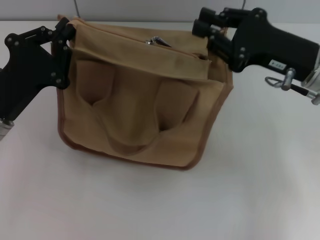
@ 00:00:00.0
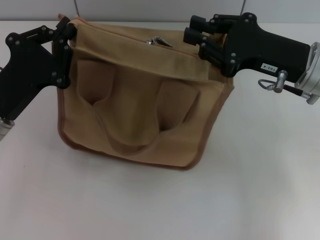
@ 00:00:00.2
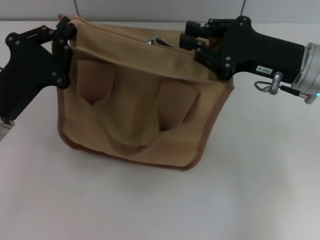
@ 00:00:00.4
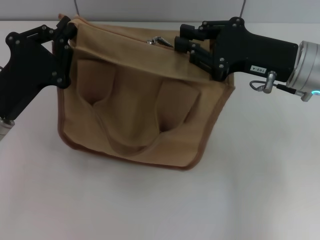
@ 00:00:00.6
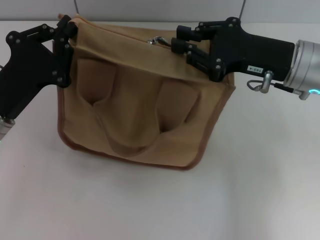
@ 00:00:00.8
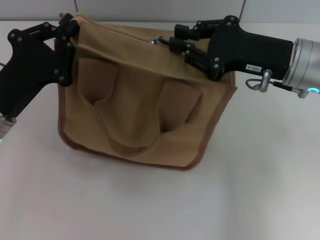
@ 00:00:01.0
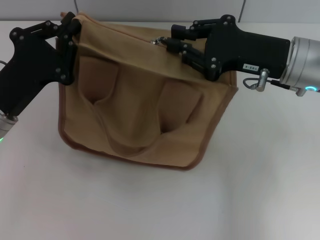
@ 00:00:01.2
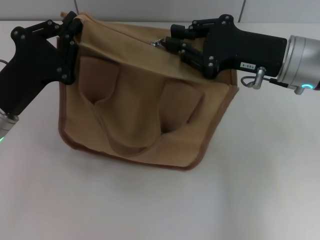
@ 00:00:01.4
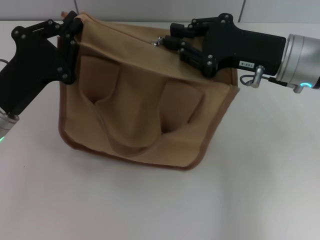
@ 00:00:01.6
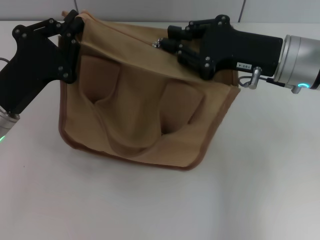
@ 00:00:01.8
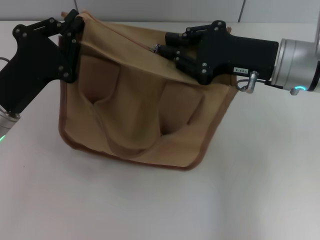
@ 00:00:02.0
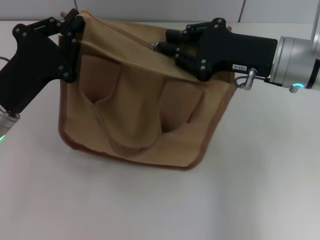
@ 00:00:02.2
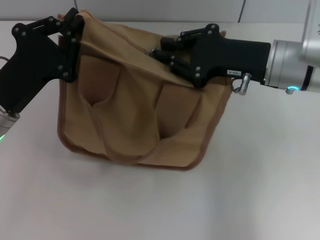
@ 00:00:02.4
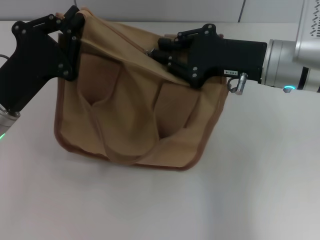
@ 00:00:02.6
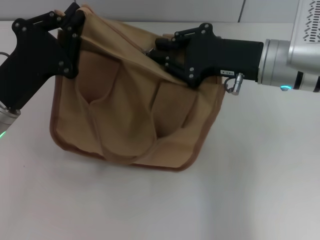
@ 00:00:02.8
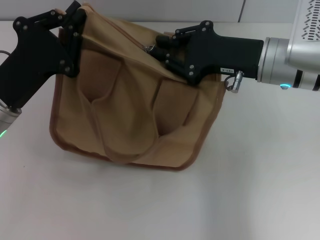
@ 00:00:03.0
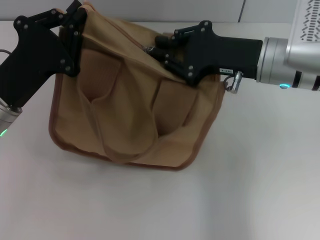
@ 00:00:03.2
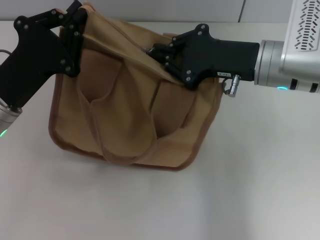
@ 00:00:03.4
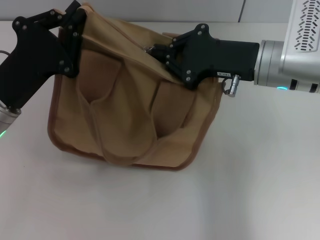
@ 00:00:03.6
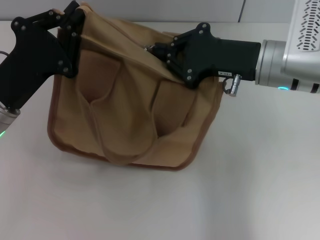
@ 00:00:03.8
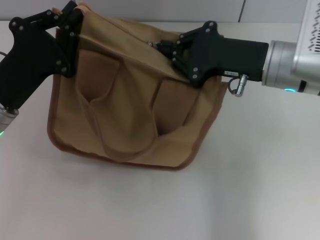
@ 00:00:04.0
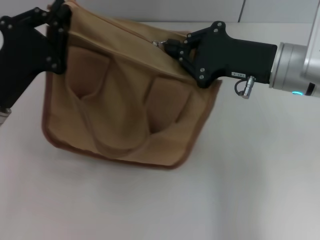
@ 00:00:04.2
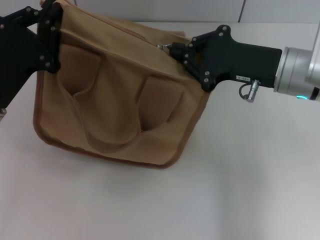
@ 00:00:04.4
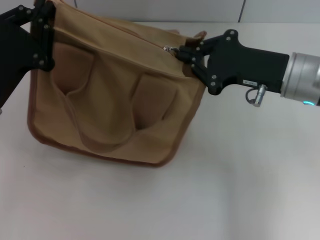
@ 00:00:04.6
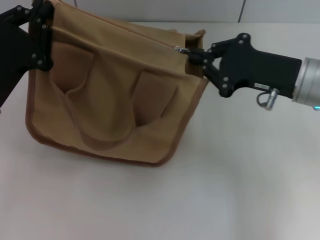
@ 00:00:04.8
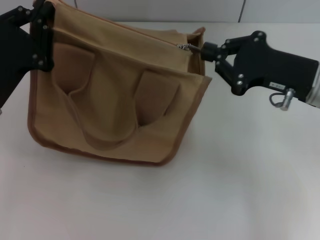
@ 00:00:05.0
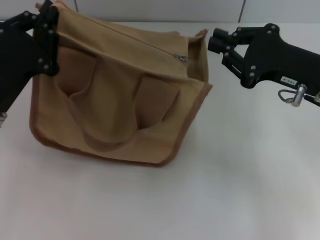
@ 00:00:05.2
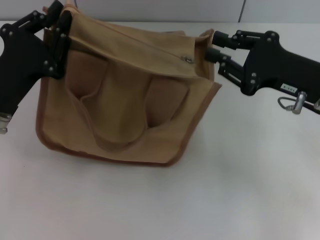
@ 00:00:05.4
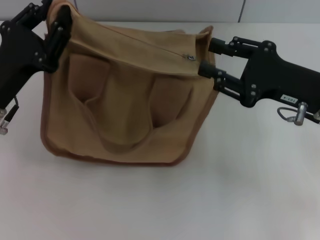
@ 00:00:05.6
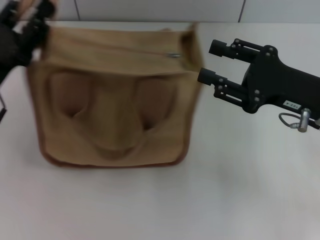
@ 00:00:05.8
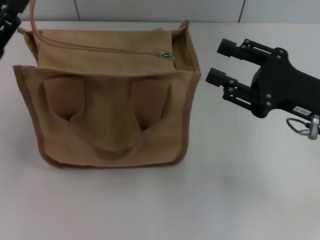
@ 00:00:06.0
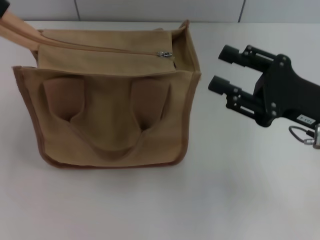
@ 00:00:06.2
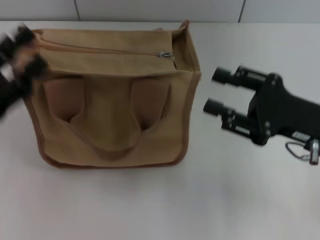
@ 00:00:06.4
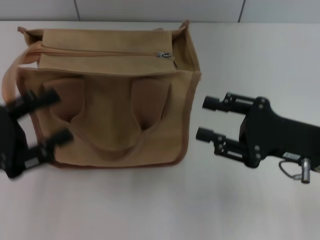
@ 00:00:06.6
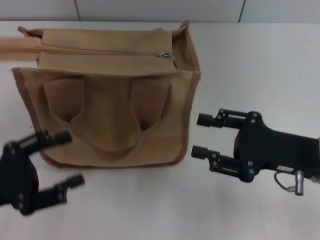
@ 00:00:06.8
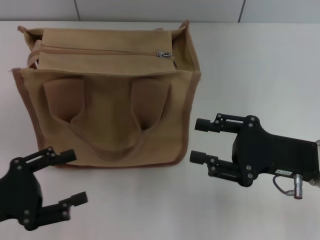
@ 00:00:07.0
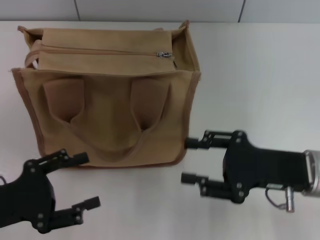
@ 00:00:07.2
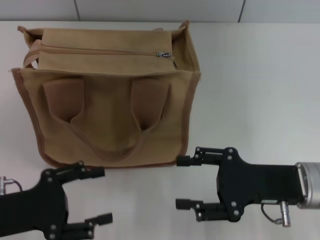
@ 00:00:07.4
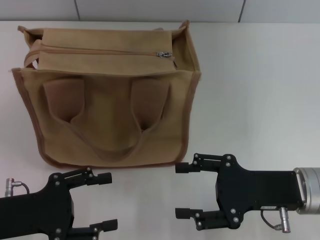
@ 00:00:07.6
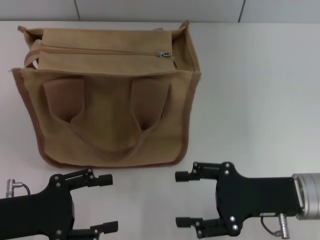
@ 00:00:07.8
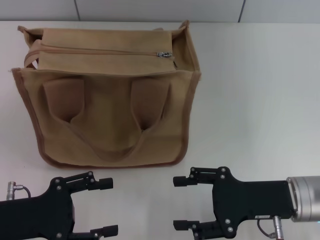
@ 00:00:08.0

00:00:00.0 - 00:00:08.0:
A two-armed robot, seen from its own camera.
Step, 00:00:00.0 - 00:00:05.0: Pull up the zipper with your right hand.
Step, 00:00:05.2 - 00:00:06.2: Grab the zipper with your left hand.
00:00:00.0 - 00:00:01.6: The grippers stay close to where they were, moving slightly.
00:00:01.6 - 00:00:03.2: The grippers stay close to where they were, moving slightly.
00:00:03.2 - 00:00:04.8: The right gripper changes place by some 5 cm.
00:00:04.8 - 00:00:06.4: The left gripper changes place by approximately 5 cm, and opens up; the right gripper shifts about 5 cm backward, and opens its fingers.
00:00:06.4 - 00:00:08.0: Both grippers move downward, about 5 cm.

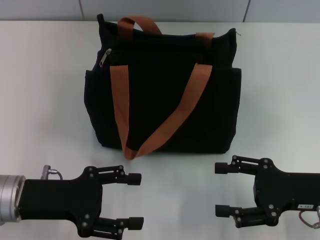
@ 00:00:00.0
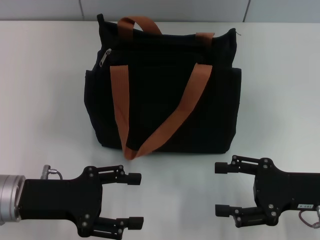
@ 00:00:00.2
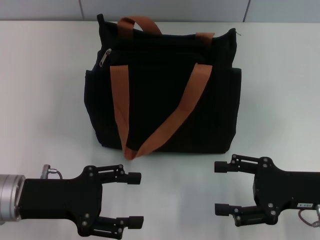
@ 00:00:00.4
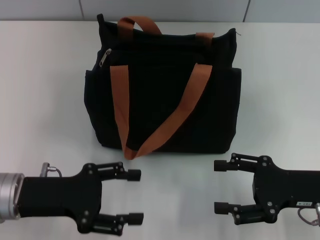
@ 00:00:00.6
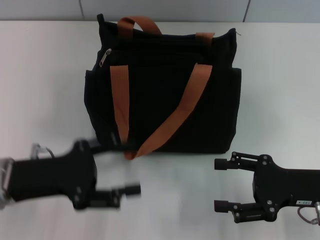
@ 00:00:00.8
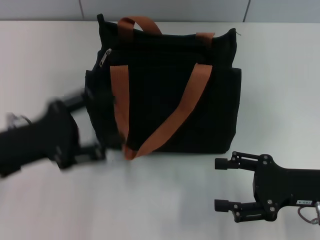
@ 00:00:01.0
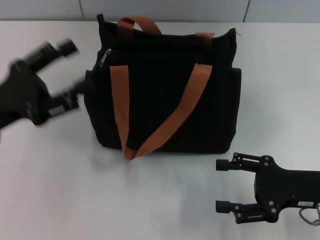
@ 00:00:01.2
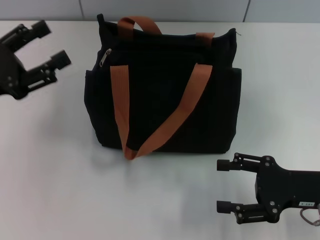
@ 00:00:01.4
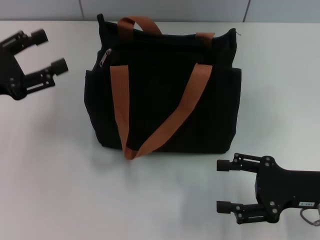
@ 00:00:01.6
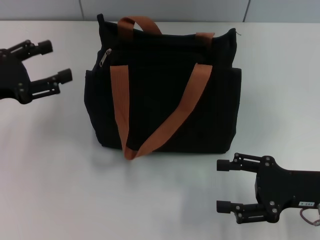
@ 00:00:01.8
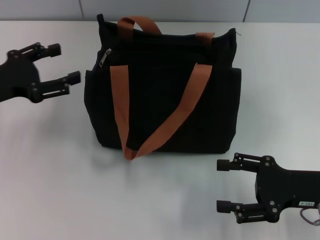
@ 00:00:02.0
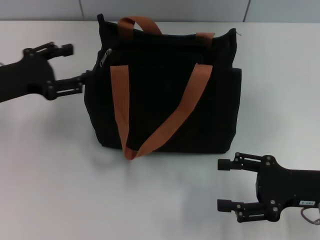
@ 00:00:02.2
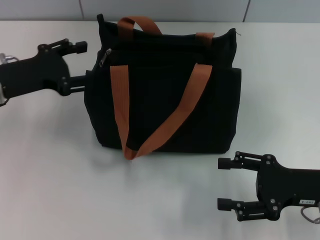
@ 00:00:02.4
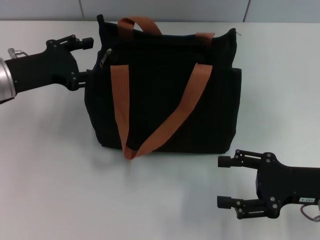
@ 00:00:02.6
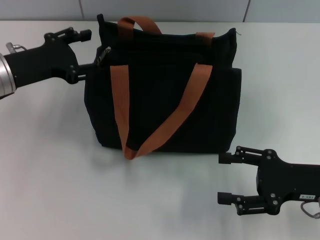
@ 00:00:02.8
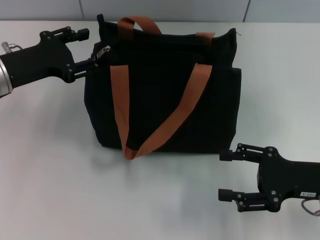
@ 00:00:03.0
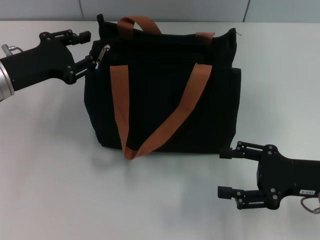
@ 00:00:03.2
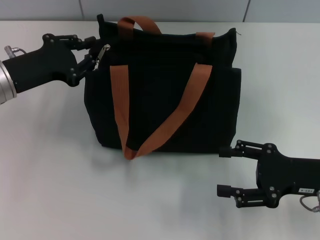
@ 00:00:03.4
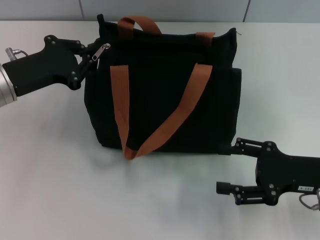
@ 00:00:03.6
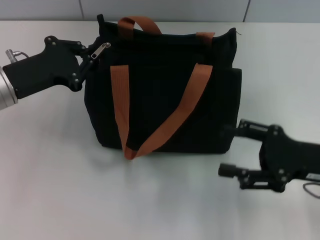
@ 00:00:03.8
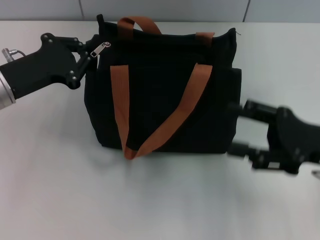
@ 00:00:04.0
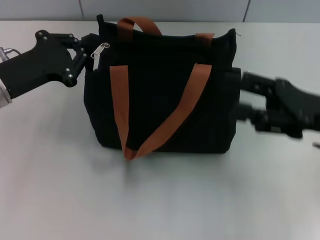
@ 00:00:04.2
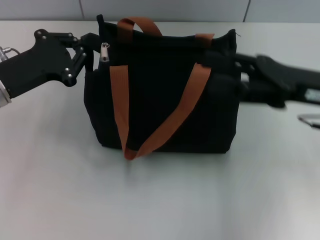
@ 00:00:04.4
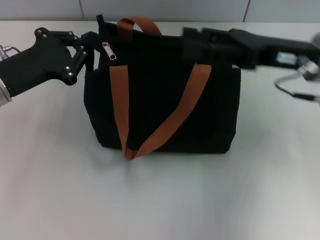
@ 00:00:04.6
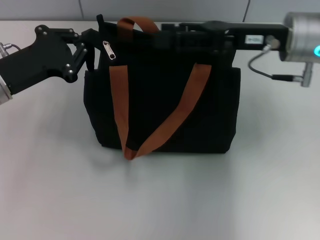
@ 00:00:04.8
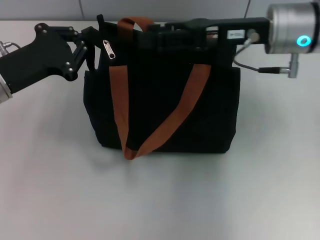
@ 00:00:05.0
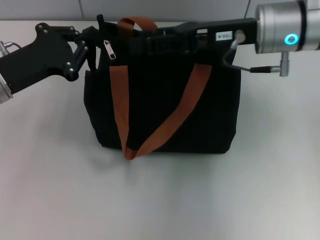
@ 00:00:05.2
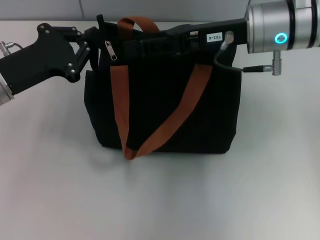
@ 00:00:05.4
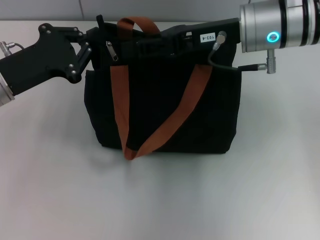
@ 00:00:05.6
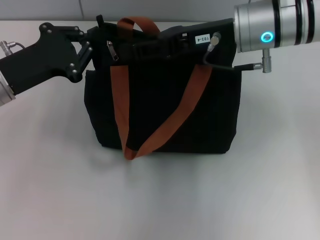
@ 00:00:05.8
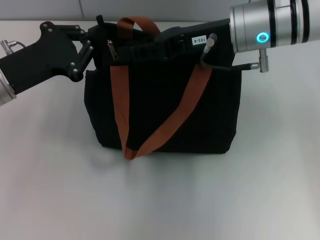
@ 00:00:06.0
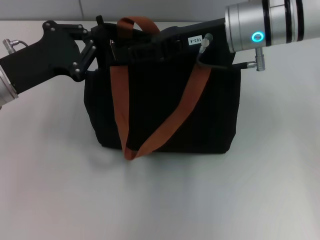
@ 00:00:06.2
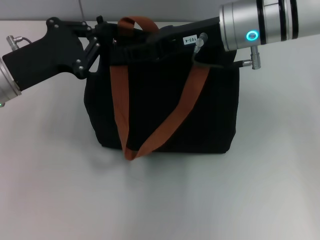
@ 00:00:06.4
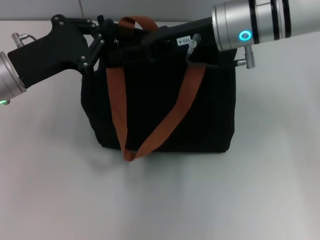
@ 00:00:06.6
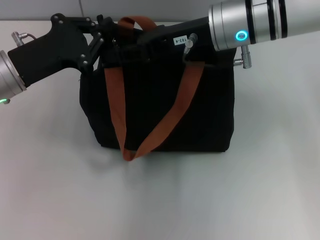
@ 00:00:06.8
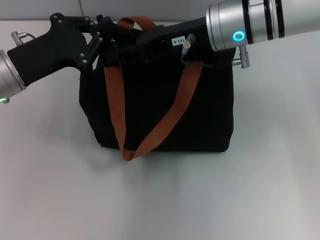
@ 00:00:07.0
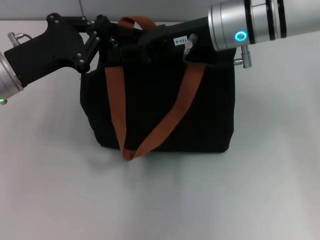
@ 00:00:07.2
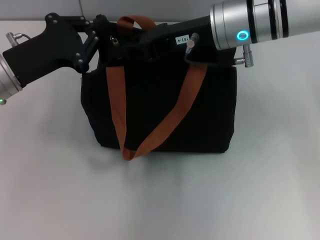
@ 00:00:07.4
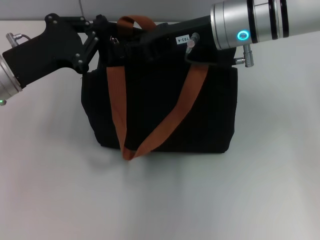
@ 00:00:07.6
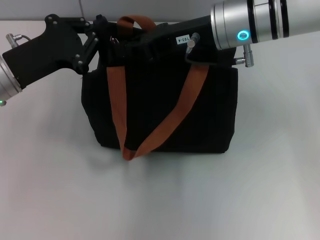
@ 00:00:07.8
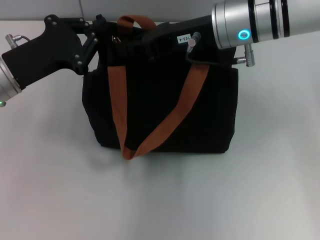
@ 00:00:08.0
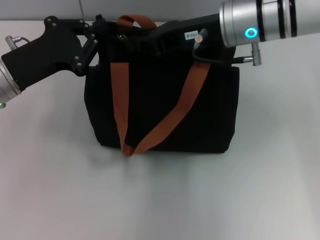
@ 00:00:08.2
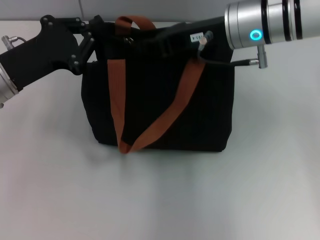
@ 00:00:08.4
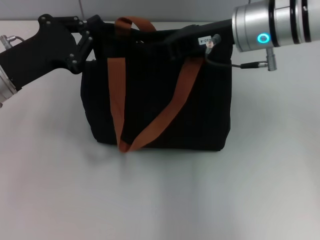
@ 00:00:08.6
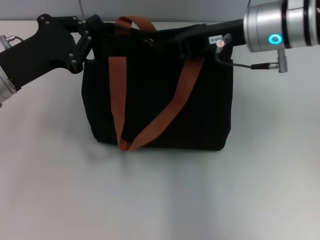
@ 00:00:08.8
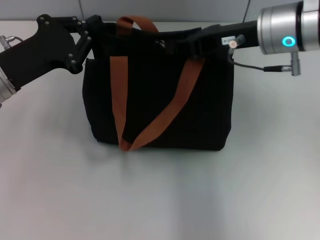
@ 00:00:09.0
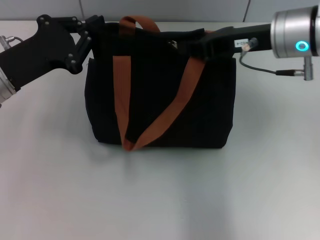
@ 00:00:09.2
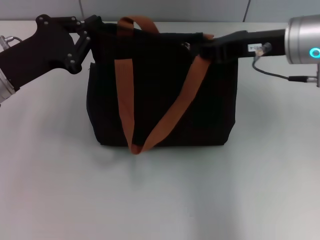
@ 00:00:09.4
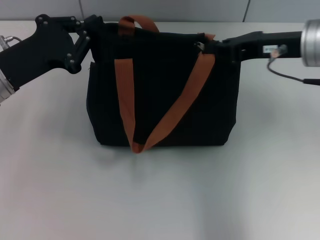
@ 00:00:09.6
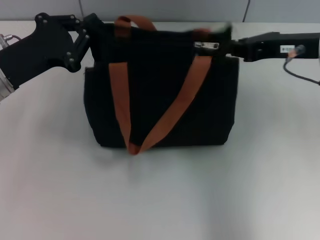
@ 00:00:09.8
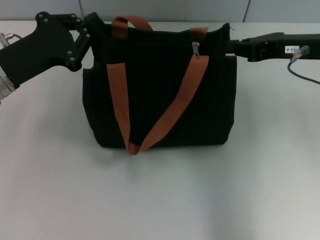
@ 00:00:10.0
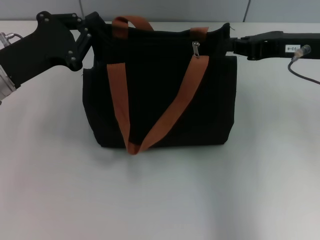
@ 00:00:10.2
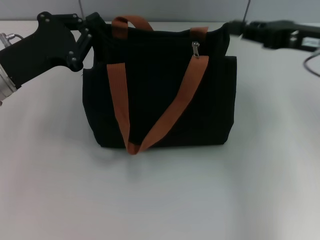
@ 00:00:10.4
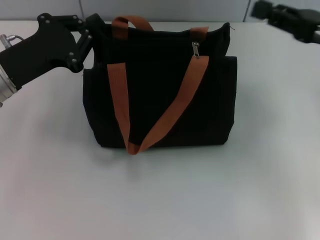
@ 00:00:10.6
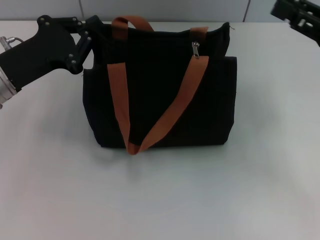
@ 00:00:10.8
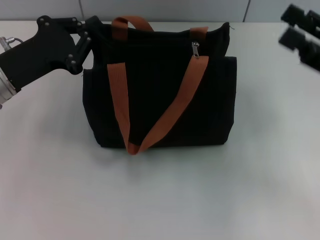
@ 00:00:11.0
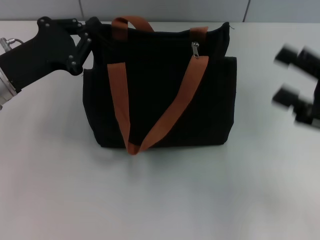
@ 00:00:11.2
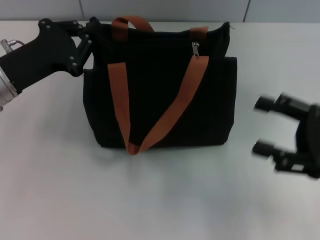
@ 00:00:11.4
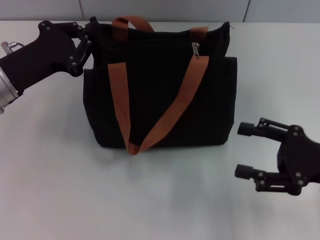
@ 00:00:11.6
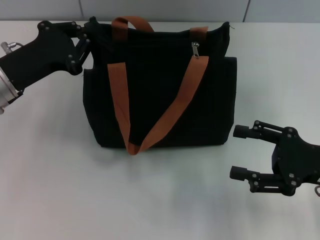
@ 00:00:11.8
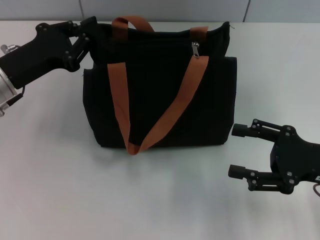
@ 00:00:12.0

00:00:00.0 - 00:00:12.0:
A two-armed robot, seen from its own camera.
Step, 00:00:00.0 - 00:00:09.6: Pull up the zipper with your right hand.
00:00:00.0 - 00:00:01.6: The left gripper travels to the left, forward and upward by some 10 cm.
00:00:01.6 - 00:00:03.0: The left gripper heads forward and to the right, covering some 10 cm.
00:00:03.0 - 00:00:04.4: The right gripper travels upward and forward by roughly 10 cm, while the left gripper closes its fingers.
00:00:04.4 - 00:00:06.0: The right gripper travels to the left and forward by about 15 cm, and closes up.
00:00:06.0 - 00:00:07.6: The right gripper closes.
00:00:07.6 - 00:00:09.0: The right gripper heads to the right, covering approximately 5 cm.
00:00:09.0 - 00:00:10.4: The right gripper travels to the right by some 10 cm.
00:00:10.4 - 00:00:12.0: The right gripper moves downward and backward, roughly 15 cm, and opens up.

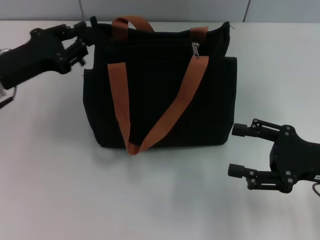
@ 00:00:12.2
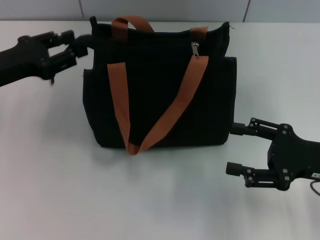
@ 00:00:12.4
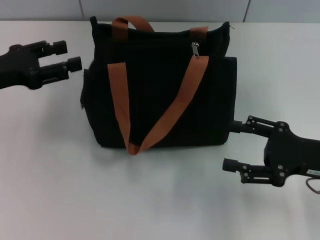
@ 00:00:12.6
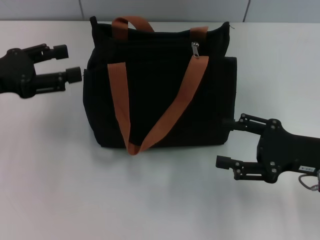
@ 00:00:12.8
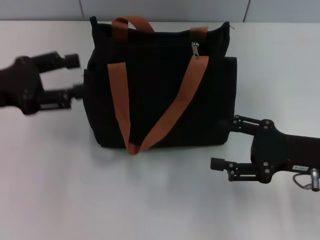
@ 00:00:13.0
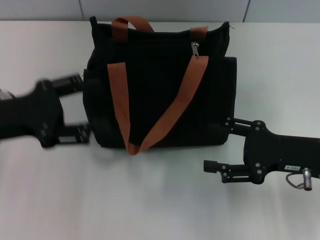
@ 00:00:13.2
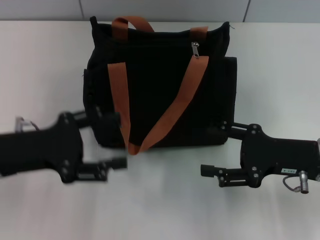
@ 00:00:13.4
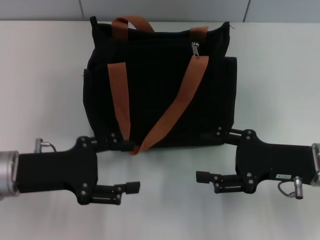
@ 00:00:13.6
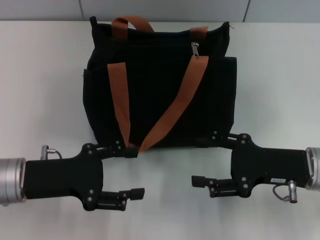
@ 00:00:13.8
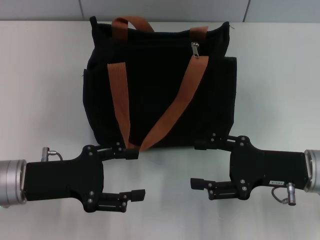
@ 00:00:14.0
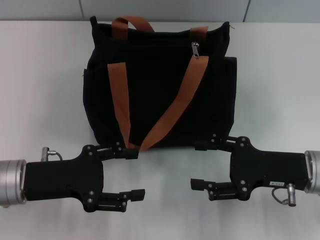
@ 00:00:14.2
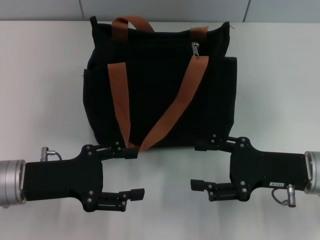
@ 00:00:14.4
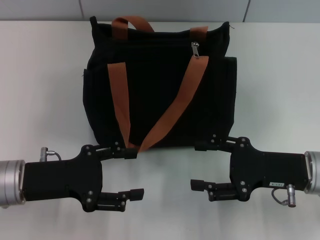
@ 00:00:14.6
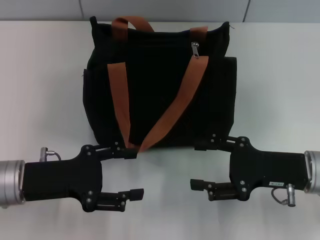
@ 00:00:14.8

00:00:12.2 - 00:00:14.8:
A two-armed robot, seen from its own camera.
00:00:12.2 - 00:00:13.4: The left gripper goes roughly 5 cm backward, and opens.
00:00:13.4 - 00:00:14.8: The grippers move only a little.
